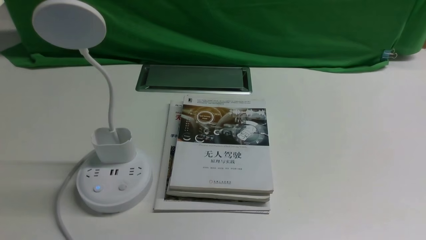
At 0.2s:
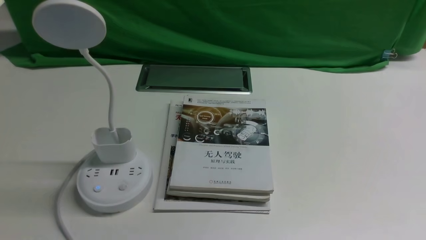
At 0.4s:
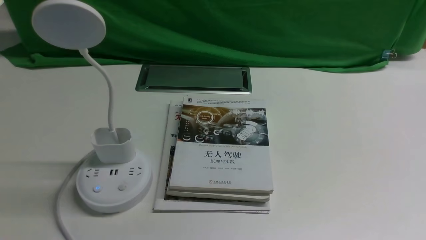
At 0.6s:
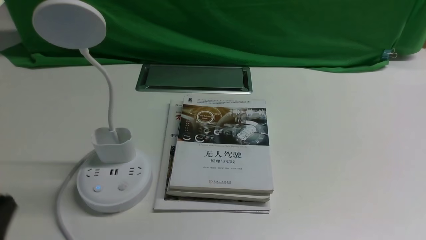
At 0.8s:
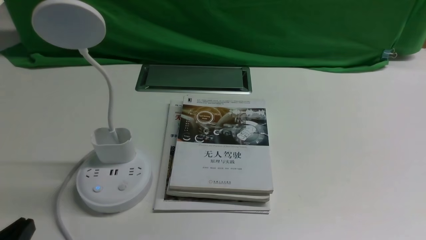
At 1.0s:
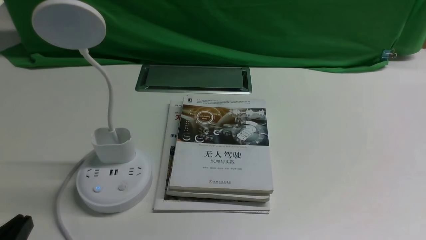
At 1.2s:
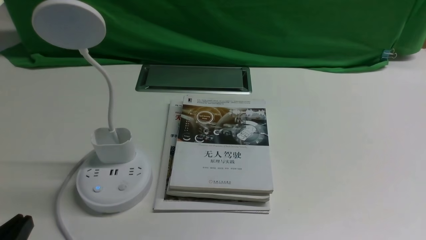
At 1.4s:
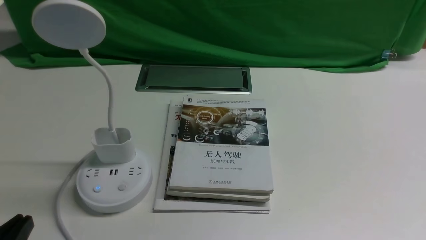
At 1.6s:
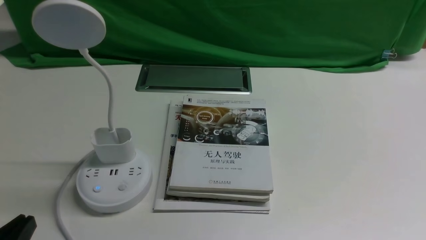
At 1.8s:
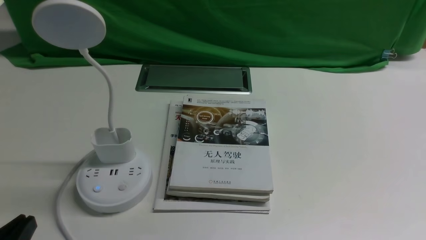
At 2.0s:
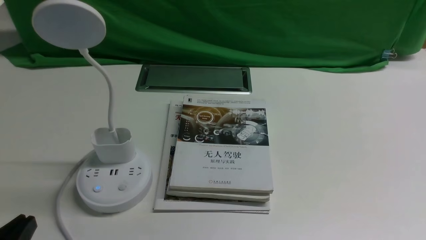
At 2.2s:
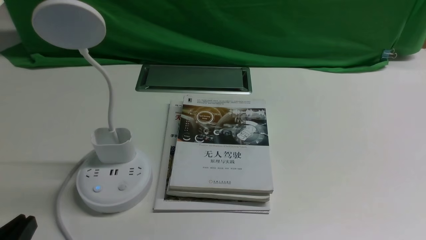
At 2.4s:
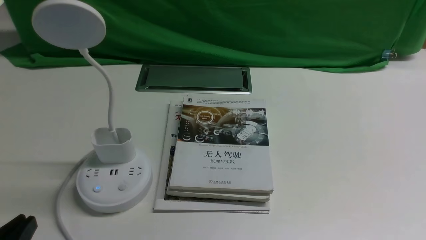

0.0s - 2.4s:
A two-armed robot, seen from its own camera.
Task of the whole recording: turn off the desk lamp on the white desktop by hand.
0.0s - 1.2s: The left gripper shifts about 15 cm downward, and opens.
